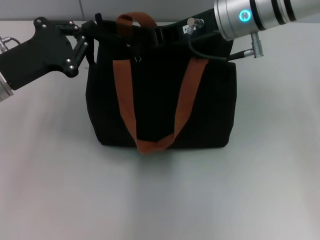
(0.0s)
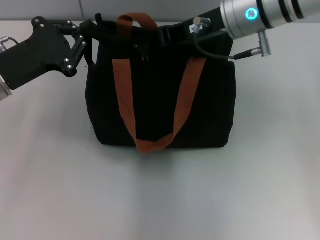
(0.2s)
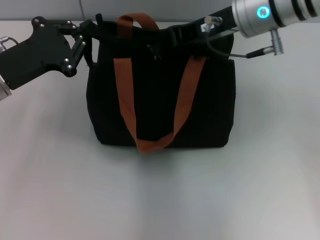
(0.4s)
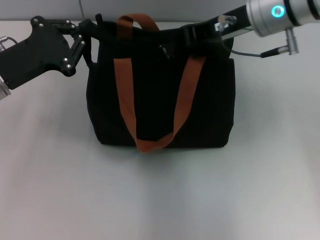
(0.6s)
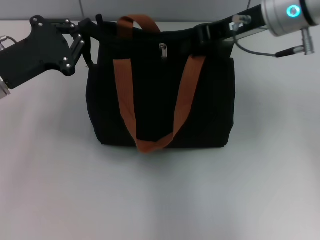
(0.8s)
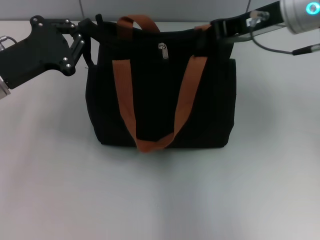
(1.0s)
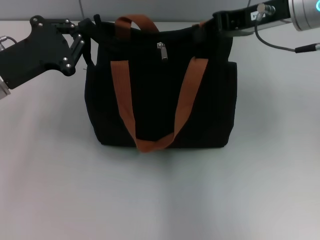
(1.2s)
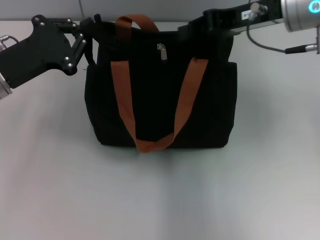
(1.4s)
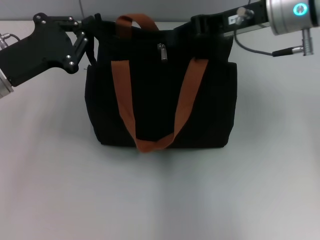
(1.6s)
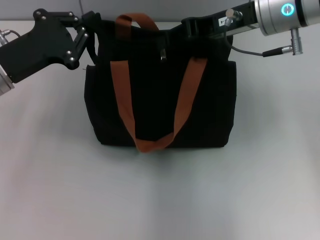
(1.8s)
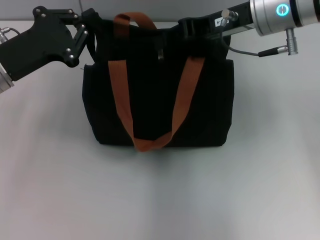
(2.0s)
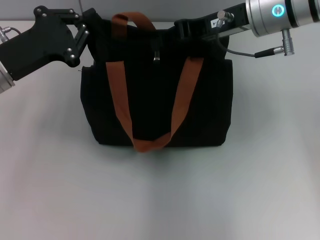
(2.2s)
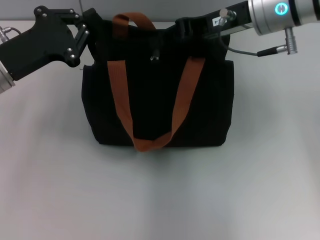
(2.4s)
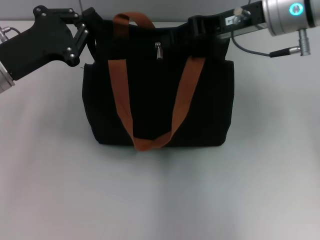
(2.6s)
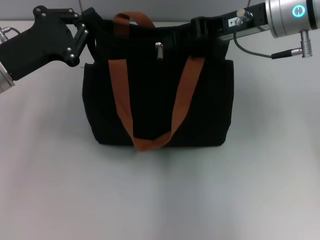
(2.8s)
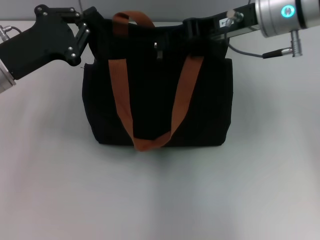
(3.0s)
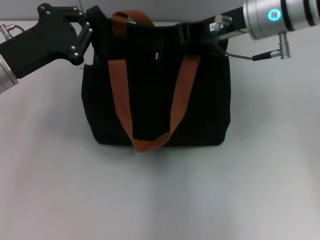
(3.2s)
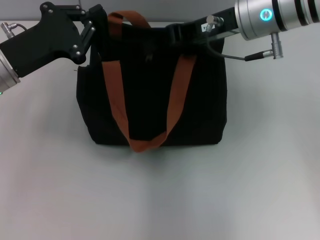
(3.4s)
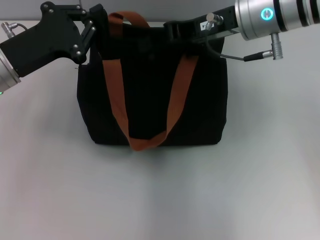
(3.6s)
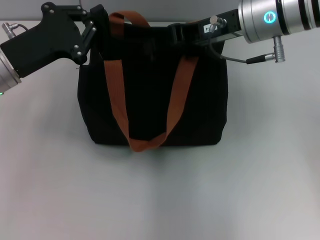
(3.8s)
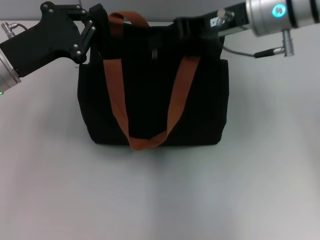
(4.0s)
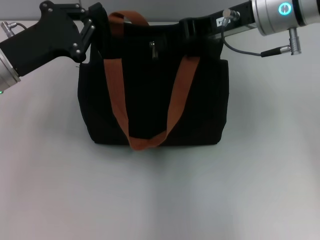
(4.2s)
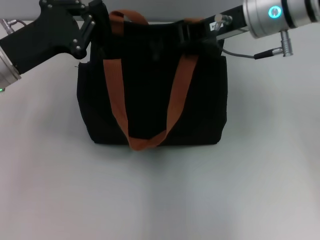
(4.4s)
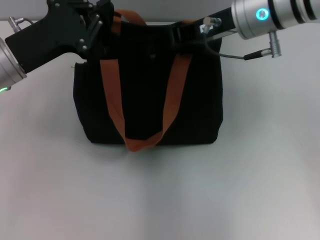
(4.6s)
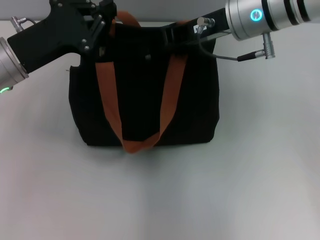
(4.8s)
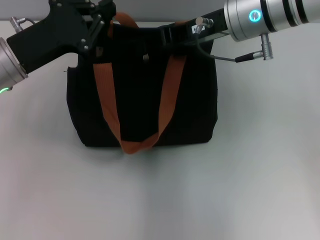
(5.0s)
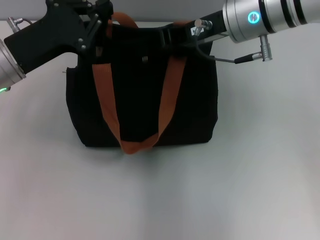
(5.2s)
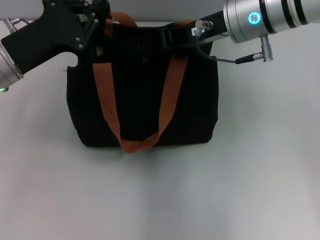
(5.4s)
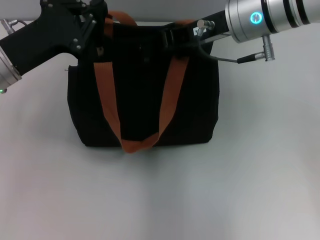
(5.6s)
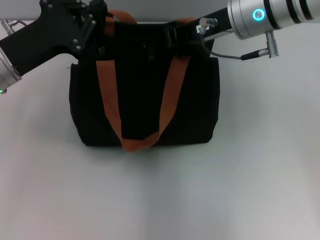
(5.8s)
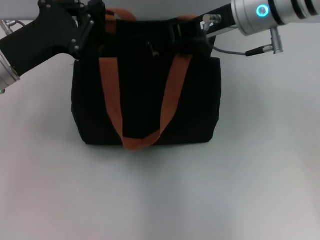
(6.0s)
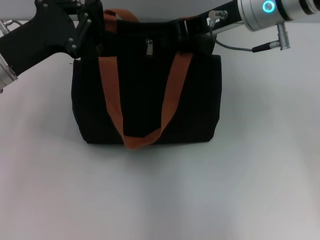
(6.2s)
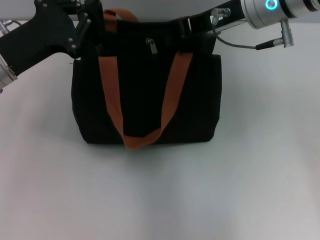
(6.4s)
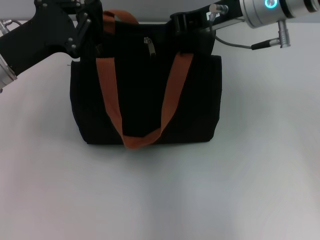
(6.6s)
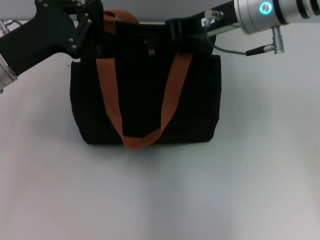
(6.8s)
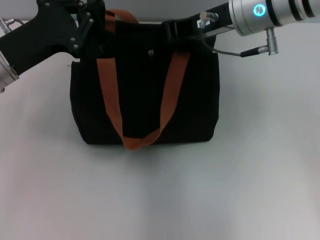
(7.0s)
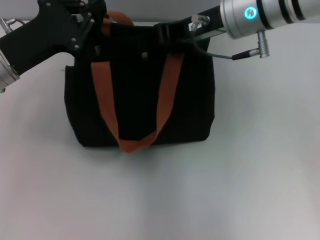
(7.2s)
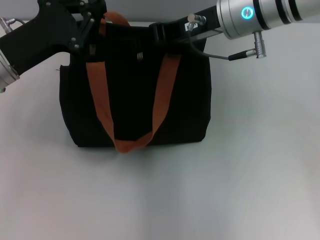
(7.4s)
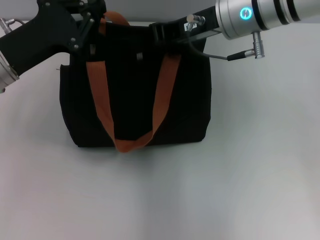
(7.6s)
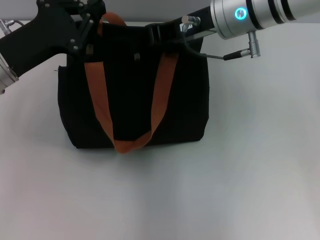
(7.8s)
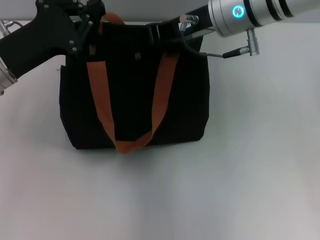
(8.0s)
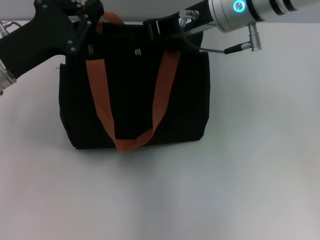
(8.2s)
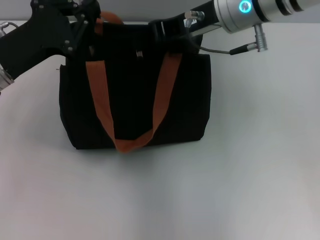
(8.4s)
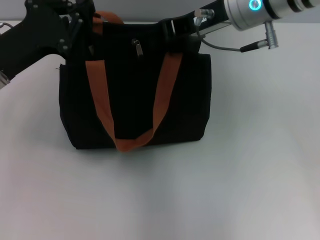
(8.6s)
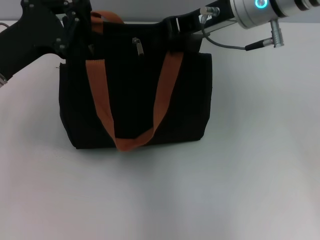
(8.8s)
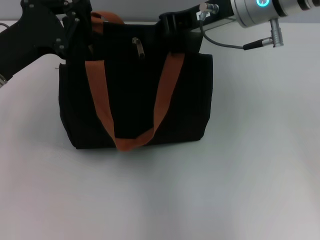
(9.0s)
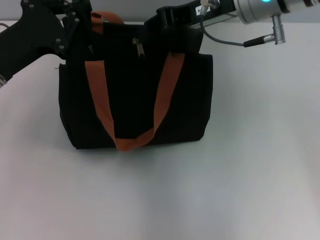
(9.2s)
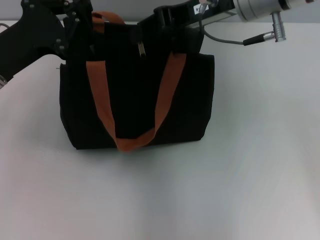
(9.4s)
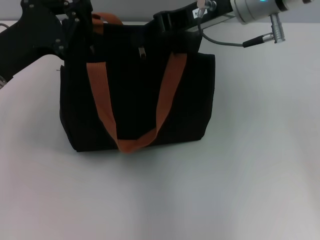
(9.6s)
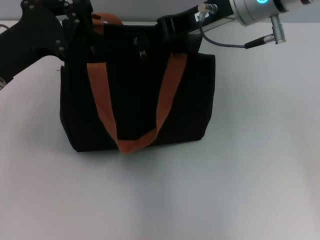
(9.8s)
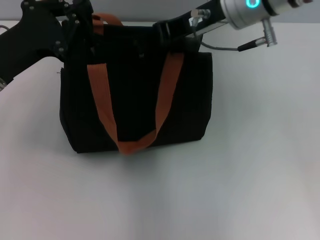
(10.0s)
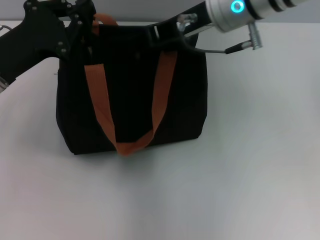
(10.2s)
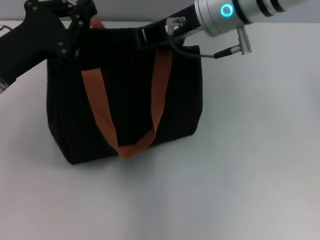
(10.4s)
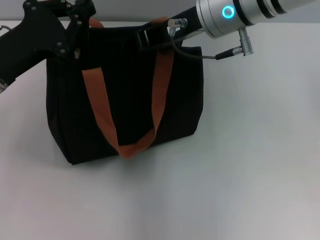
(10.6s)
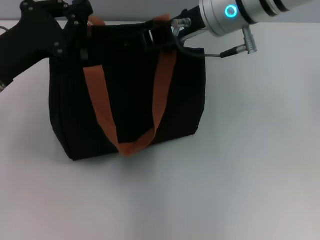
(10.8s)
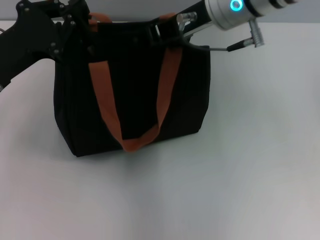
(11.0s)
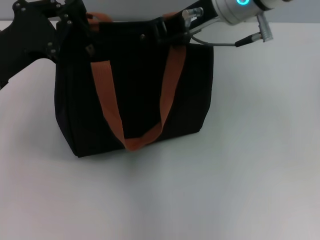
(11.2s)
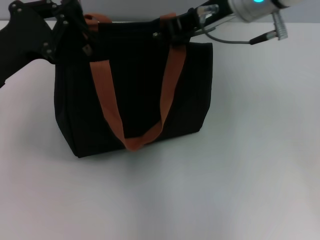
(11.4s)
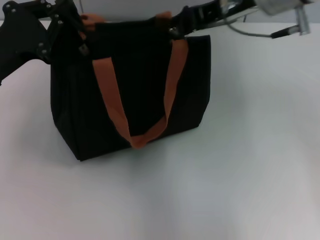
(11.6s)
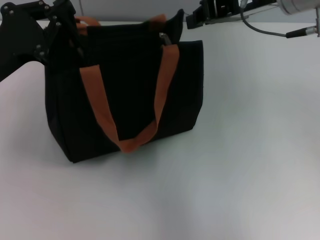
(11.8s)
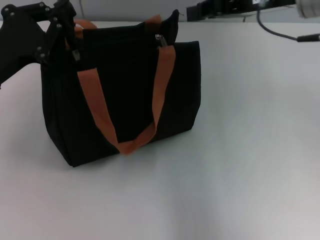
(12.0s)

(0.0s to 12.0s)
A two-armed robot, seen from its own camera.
Step, 0.0s - 12.0s: Pull up the zipper with your right hand.
0.0s - 1.6s: The right gripper shifts approximately 5 cm to the right.
1.6s - 4.4s: The grippers make only small movements.
4.4s - 6.0s: The right gripper closes its fingers.
6.0s - 10.4s: The grippers move only a little.
10.4s - 12.0s: The right gripper heads to the right, covering roughly 10 cm.

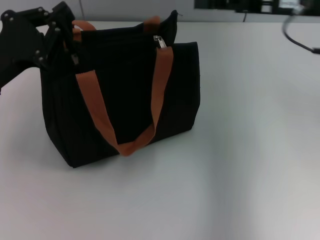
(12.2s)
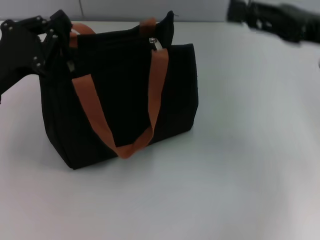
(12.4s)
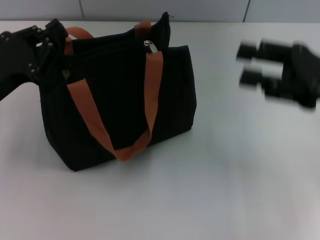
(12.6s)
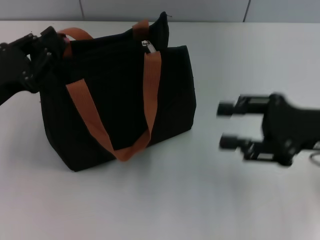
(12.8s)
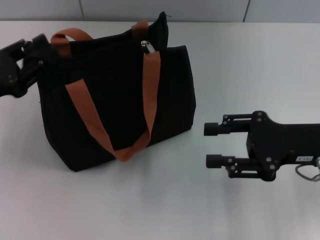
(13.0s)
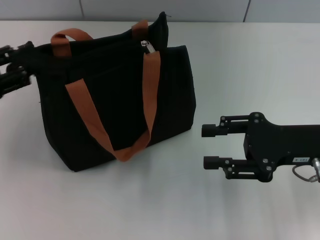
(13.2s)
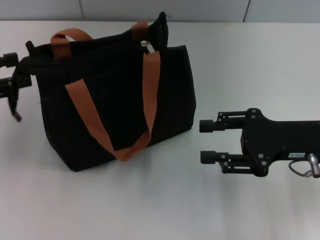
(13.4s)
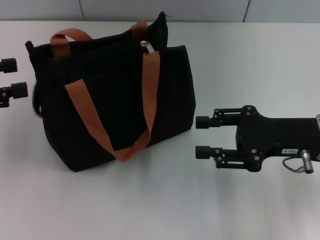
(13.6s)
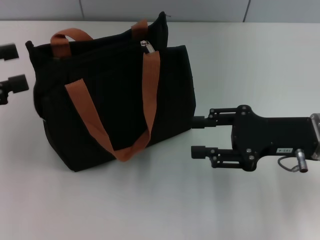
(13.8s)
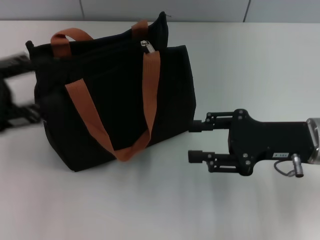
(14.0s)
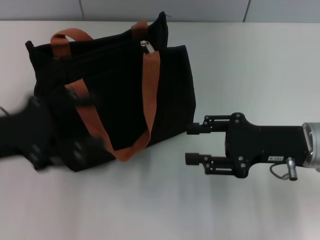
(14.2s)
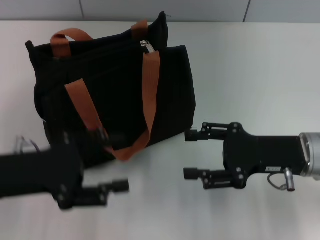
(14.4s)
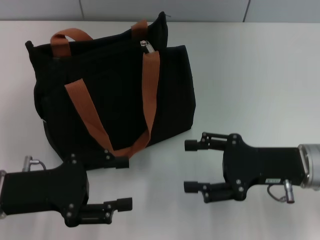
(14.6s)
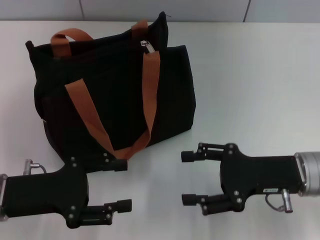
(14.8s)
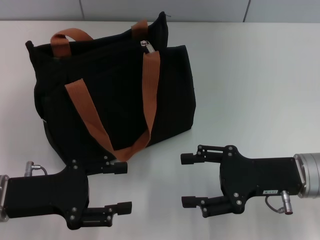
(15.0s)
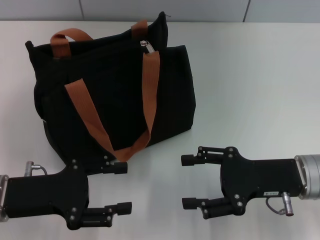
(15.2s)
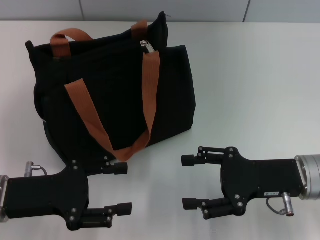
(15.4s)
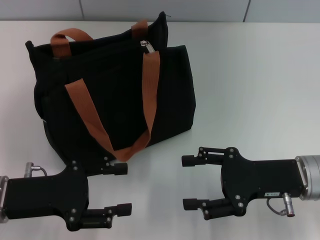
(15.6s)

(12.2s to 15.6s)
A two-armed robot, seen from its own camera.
Step, 12.2s - 13.4s: Grab the zipper with your left hand.
12.2s - 13.8s: The left gripper goes about 10 cm to the left and upward, and opens its fingers; the right gripper is displaced downward and backward by roughly 15 cm, and opens up.
13.8s - 15.6s: The right gripper changes place by approximately 5 cm; the left gripper shifts about 15 cm downward and to the right.

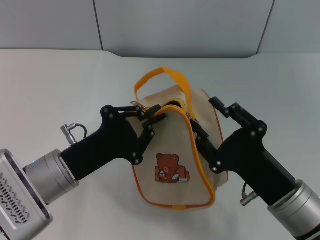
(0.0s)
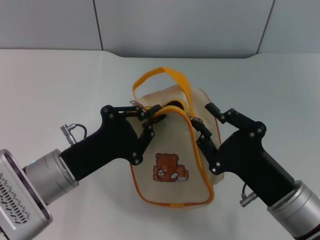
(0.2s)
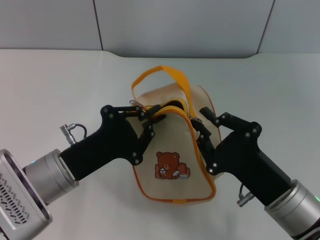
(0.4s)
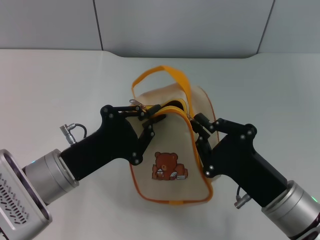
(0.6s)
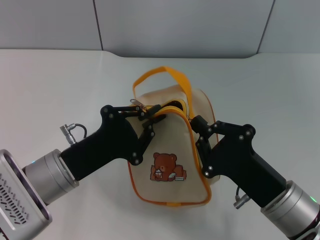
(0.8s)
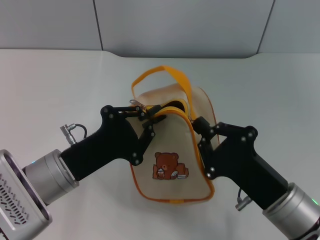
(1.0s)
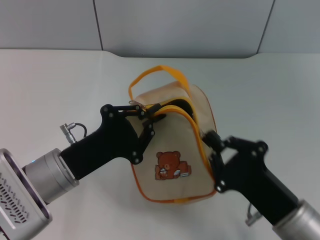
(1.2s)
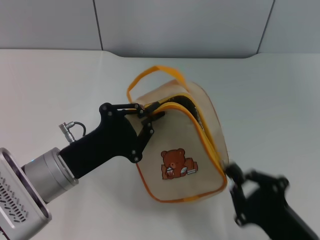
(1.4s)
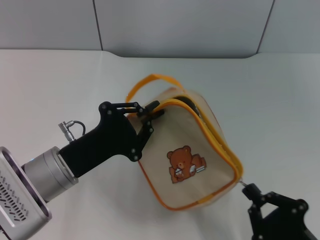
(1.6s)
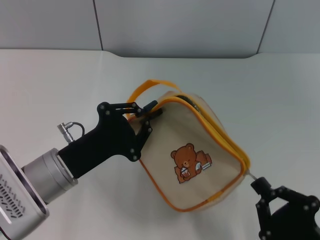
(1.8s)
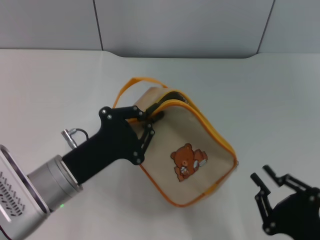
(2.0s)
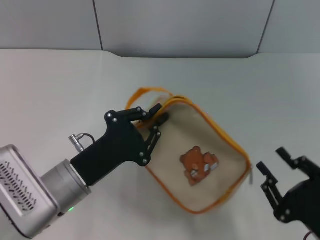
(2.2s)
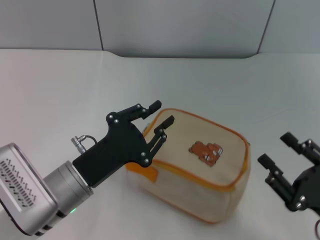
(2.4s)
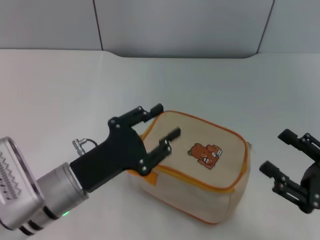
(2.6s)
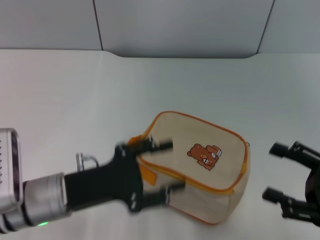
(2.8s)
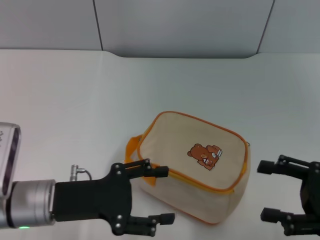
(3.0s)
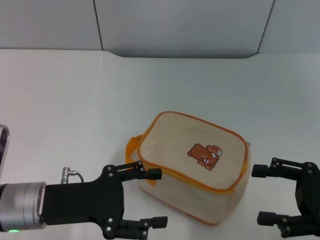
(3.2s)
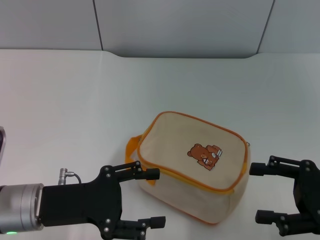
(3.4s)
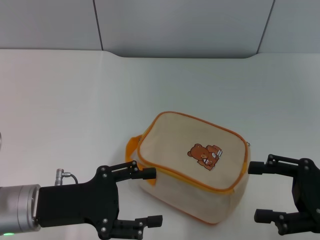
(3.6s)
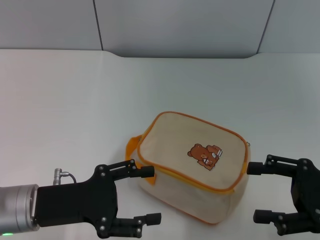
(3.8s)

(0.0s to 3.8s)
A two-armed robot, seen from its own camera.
Step, 2.2s - 2.8s: Place the bag on the table with left gripper.
0.0s - 1.2s: The right gripper closes.
1.2s - 2.6s: The right gripper heads to the right, covering some 10 cm, and opens up.
2.6s - 3.8s: The right gripper is displaced forward by some 5 cm, and opens up, while the left gripper travels to the left by some 5 cm, and opens its fingers.
